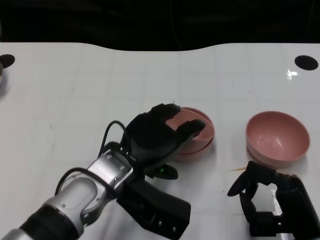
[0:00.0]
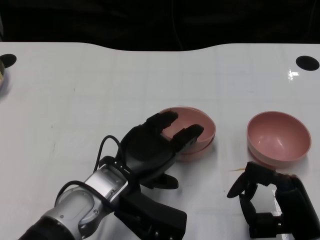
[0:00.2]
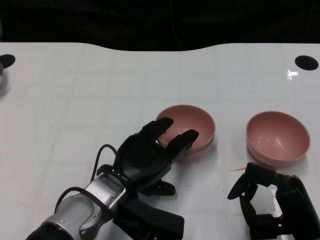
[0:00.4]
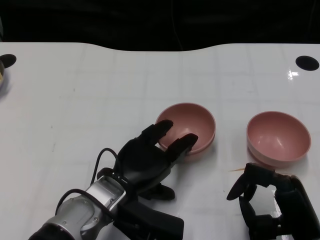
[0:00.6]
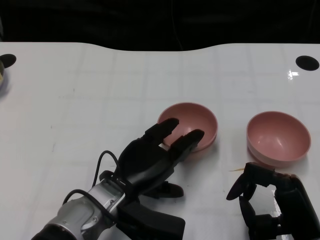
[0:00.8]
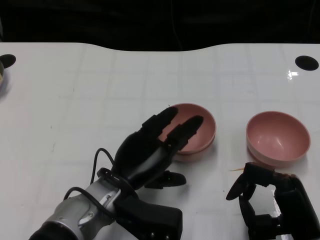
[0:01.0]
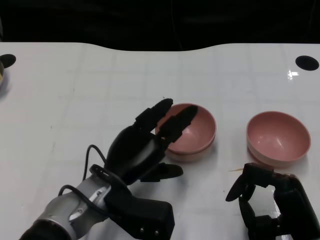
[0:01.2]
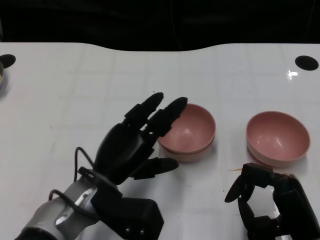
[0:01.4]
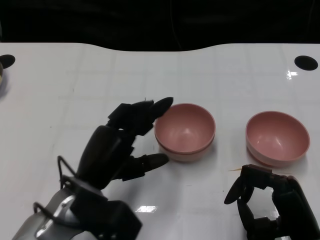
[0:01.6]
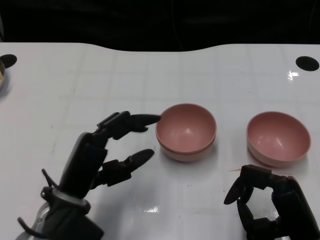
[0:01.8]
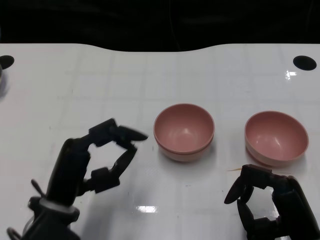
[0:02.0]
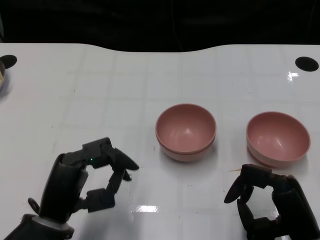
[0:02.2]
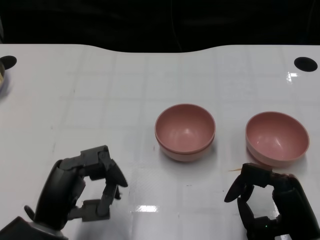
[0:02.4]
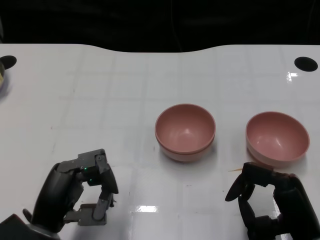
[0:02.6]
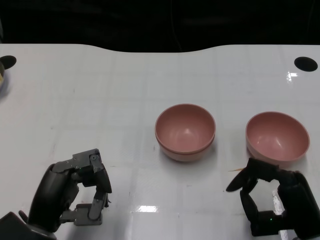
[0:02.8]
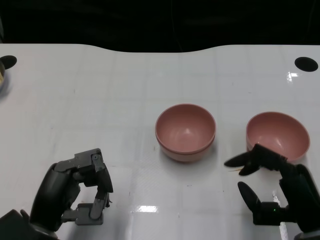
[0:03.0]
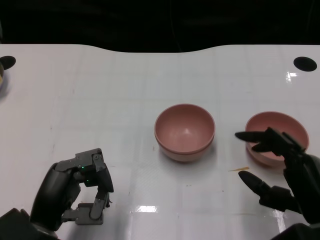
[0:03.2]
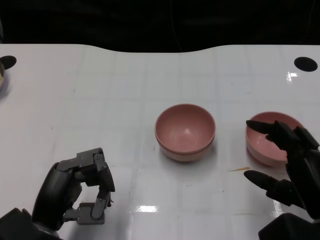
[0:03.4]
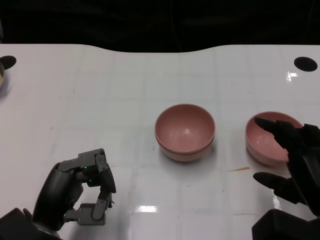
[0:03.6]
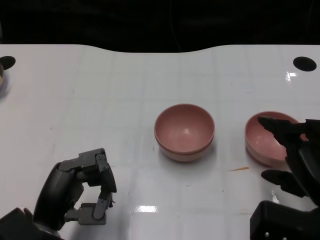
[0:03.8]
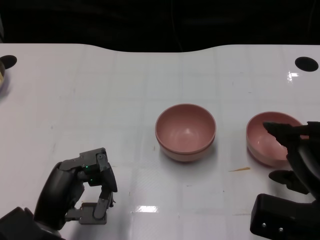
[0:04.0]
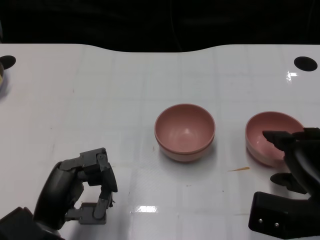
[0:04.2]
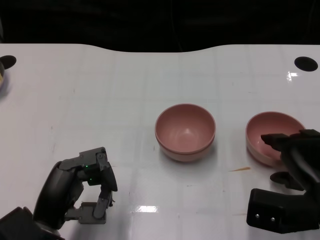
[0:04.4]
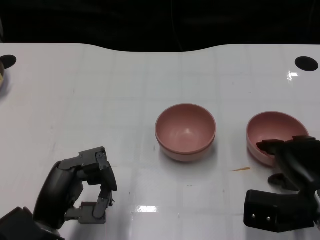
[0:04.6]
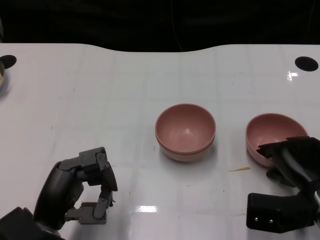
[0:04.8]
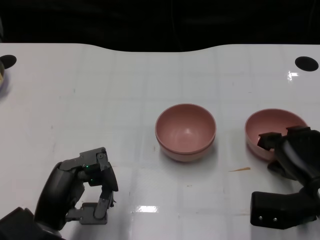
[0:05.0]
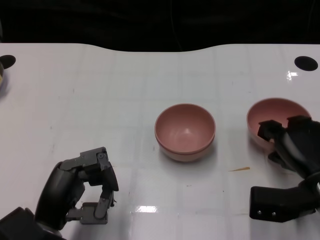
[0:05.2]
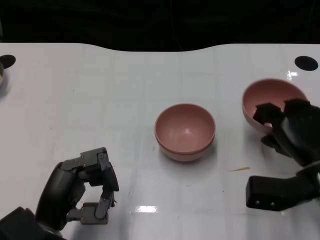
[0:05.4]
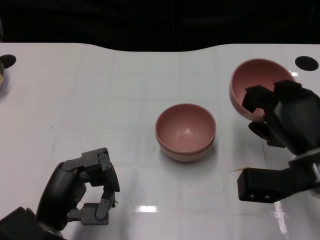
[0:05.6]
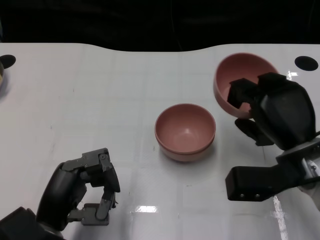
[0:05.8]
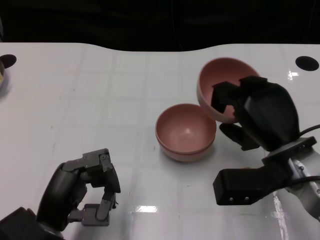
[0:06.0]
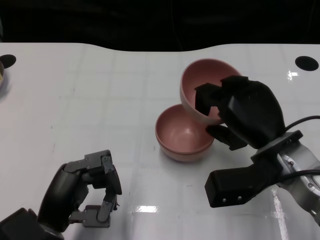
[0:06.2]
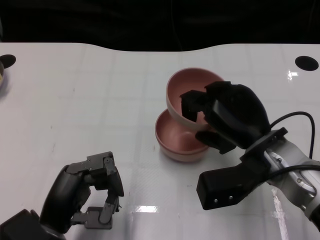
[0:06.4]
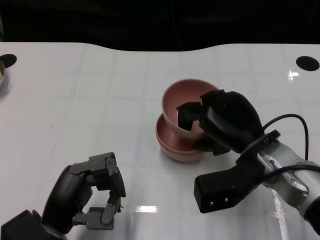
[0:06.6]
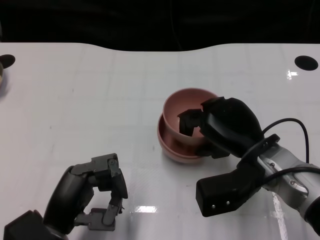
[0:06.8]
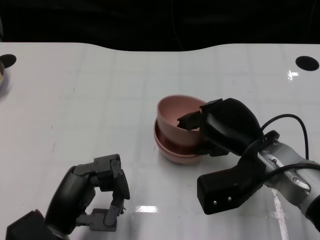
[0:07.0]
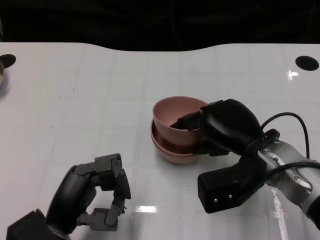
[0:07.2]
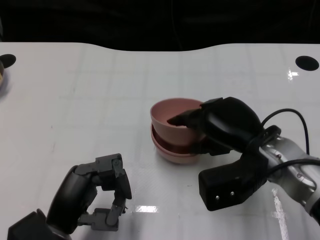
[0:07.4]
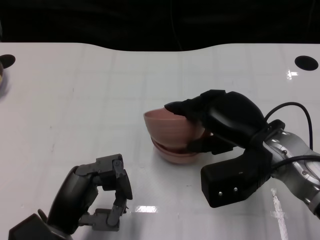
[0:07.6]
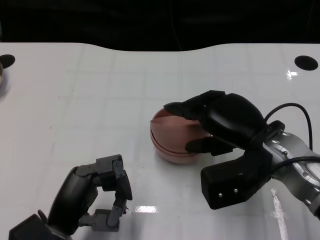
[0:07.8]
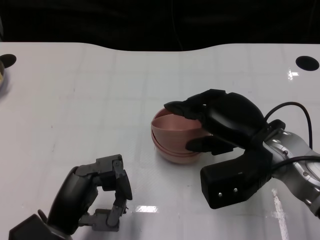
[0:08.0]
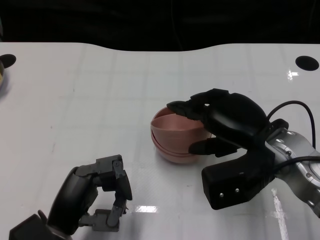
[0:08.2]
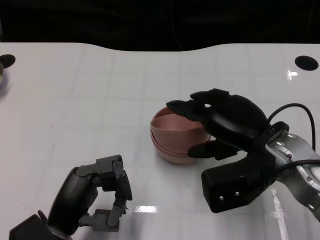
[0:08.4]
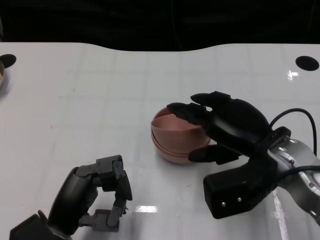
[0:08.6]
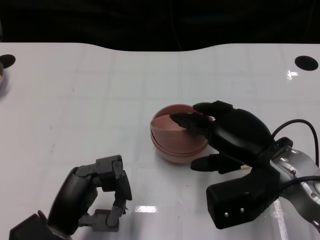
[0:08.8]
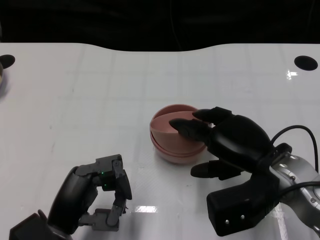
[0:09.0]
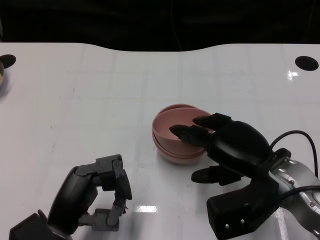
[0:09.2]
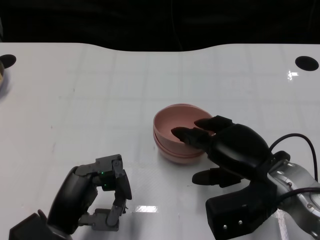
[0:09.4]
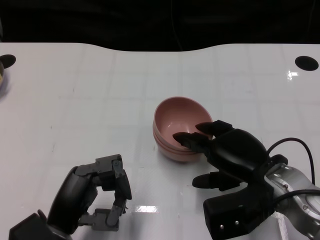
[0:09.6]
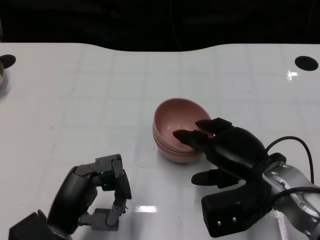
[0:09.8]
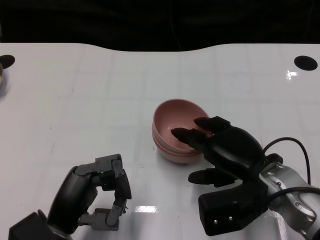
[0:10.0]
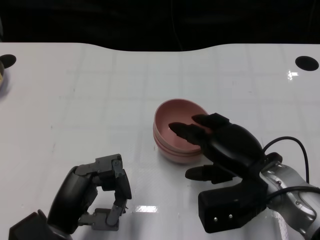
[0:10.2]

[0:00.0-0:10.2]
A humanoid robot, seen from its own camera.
Task of the whole recording: Pick up the bowl on one side of the table and place it on top of the middle bowl, then pick up the bowl on the other side of the table and place it on top of the middle bowls.
Step, 0:01.6 to 0:05.0: Grasp the bowl on the right with the right gripper.
0:01.4 to 0:03.0: The left hand travels to the left and backward by about 10 cm.
0:03.0 to 0:04.4: The right hand goes some 5 cm forward.
0:04.4 to 0:05.8: The right hand changes place by some 5 cm.
0:05.8 to 0:07.2: The right hand goes approximately 5 cm to the left.
0:07.2 to 0:10.2: The hands stay close to where they were, moving slightly.

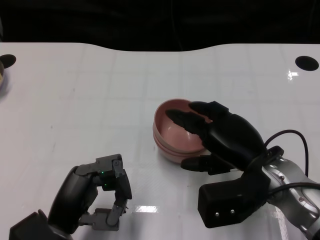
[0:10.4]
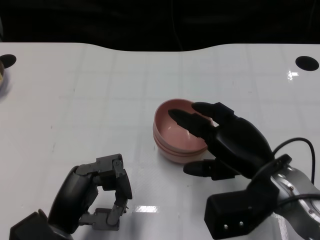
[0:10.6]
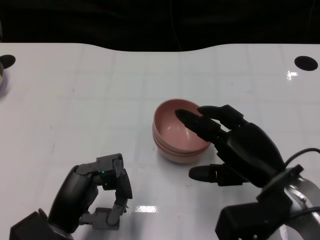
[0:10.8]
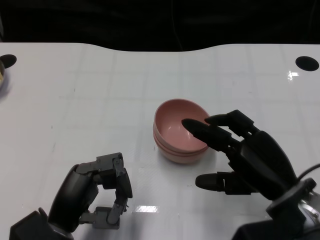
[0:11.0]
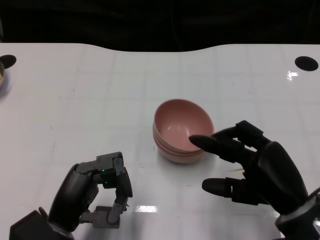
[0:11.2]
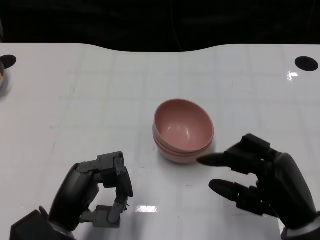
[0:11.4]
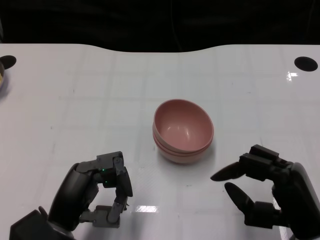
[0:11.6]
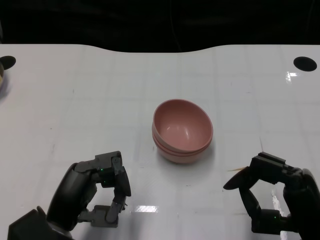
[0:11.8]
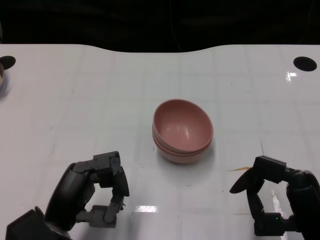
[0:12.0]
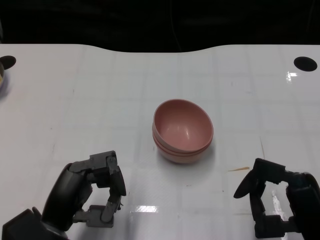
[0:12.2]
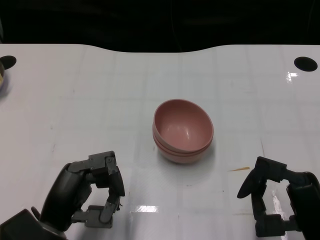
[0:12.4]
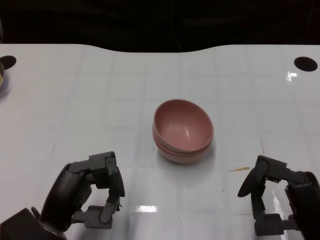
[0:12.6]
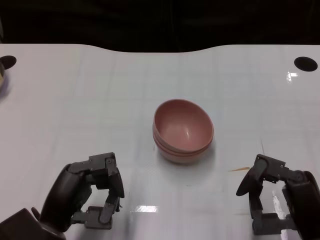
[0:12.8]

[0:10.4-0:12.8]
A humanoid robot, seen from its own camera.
Task of the whole recording: Pick up the bowl on one side of the table and place it on top of the middle bowl, then pick up the bowl on the other side of the table and place it on top of the middle bowls.
0:10.4 to 0:11.6: The right hand is displaced backward and to the right by approximately 10 cm.
0:11.6 to 0:12.8: There are only small adjustments of the hands.

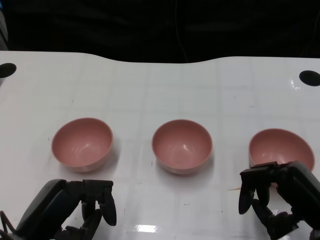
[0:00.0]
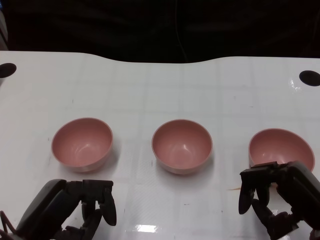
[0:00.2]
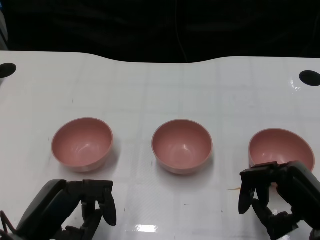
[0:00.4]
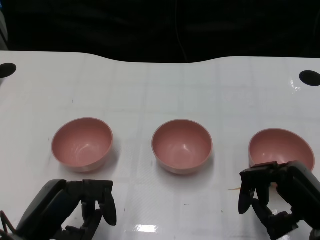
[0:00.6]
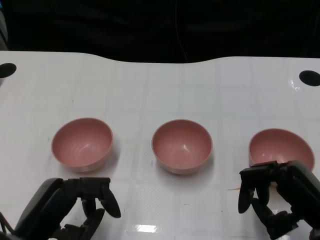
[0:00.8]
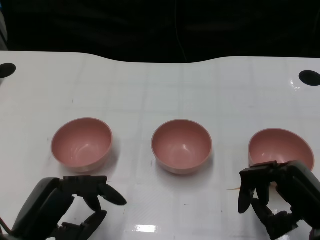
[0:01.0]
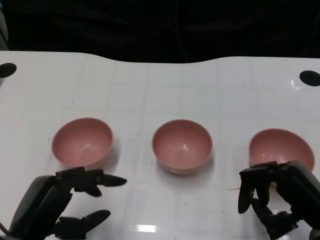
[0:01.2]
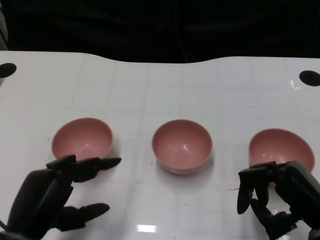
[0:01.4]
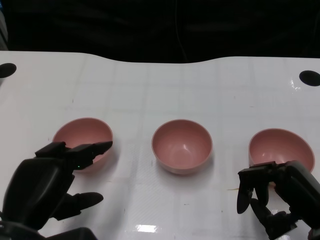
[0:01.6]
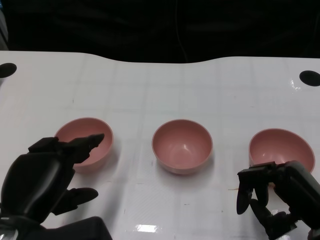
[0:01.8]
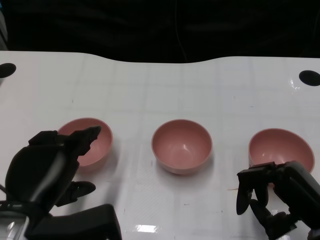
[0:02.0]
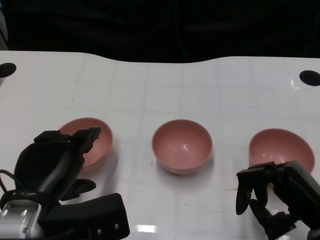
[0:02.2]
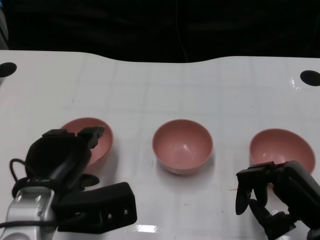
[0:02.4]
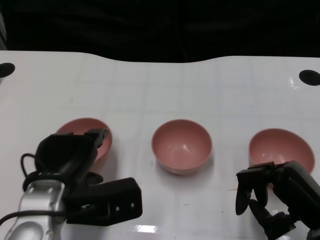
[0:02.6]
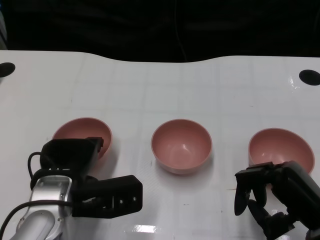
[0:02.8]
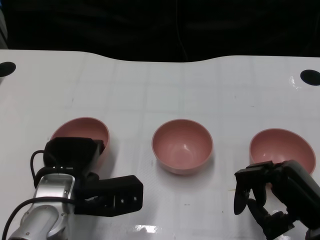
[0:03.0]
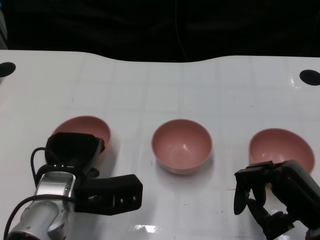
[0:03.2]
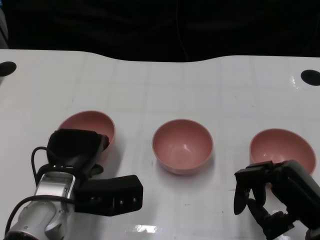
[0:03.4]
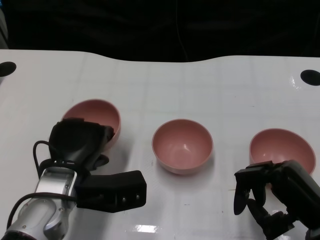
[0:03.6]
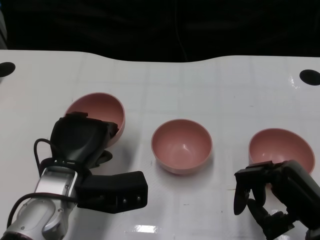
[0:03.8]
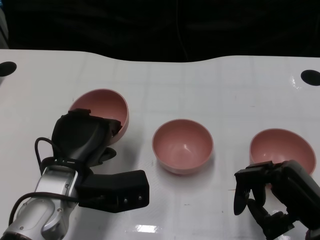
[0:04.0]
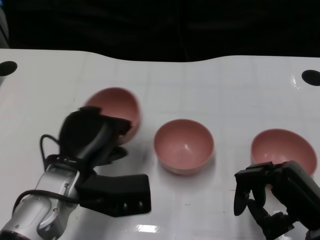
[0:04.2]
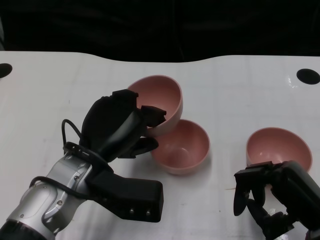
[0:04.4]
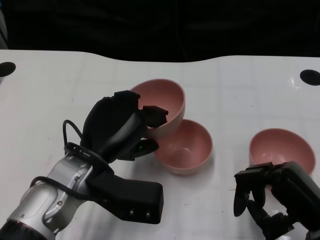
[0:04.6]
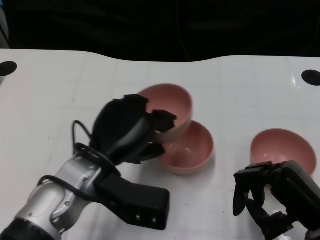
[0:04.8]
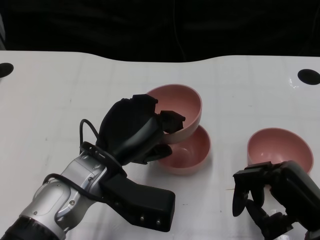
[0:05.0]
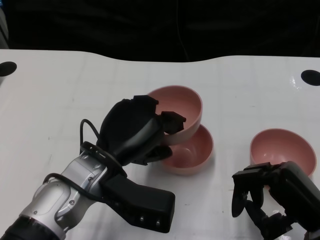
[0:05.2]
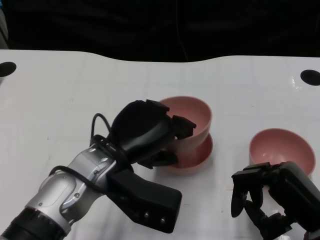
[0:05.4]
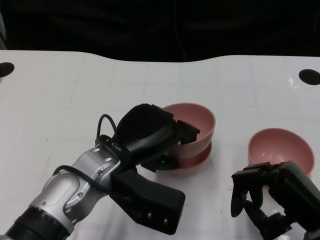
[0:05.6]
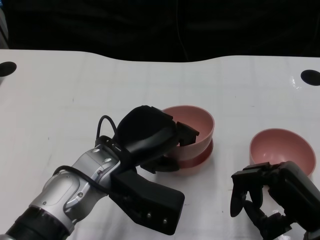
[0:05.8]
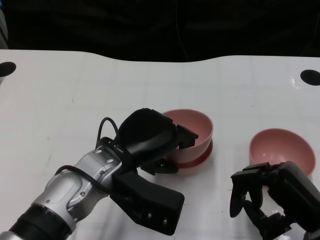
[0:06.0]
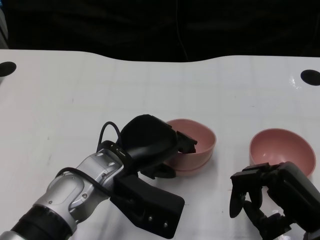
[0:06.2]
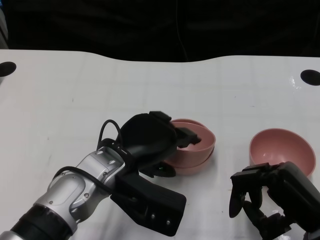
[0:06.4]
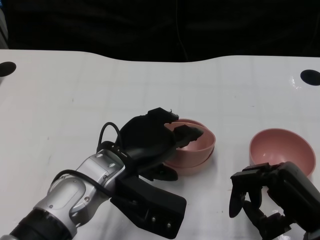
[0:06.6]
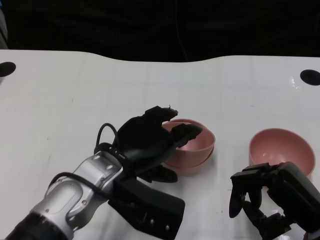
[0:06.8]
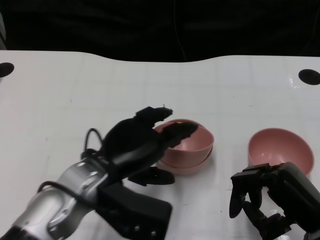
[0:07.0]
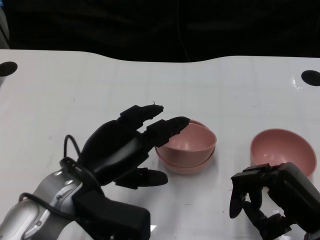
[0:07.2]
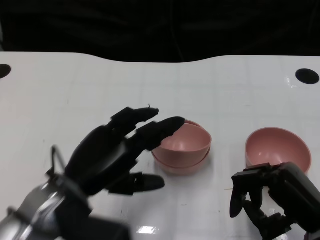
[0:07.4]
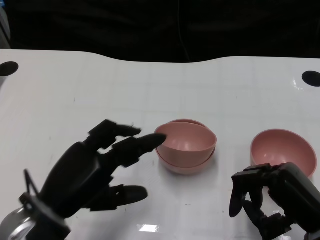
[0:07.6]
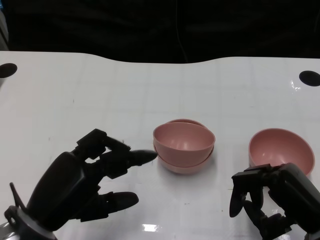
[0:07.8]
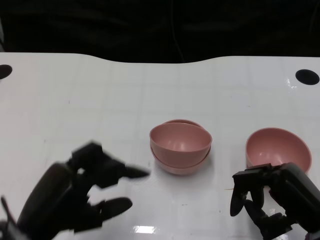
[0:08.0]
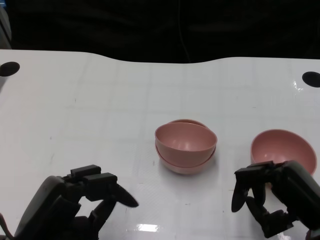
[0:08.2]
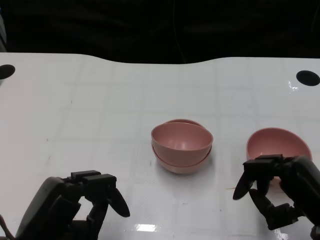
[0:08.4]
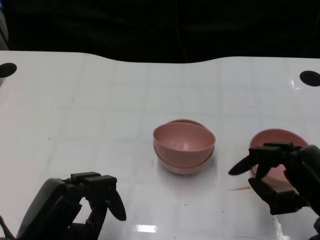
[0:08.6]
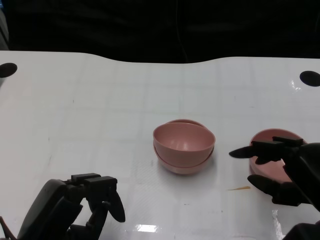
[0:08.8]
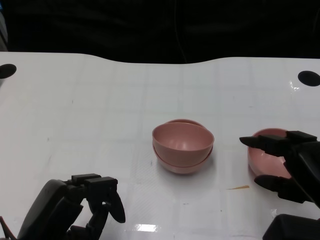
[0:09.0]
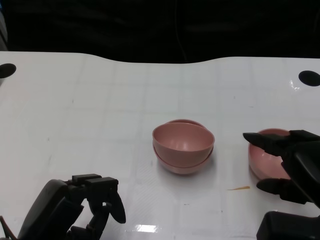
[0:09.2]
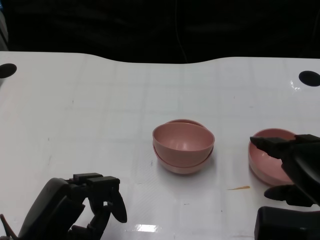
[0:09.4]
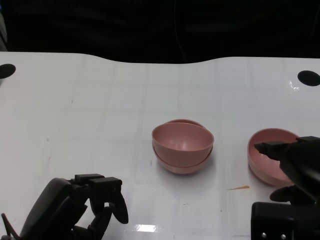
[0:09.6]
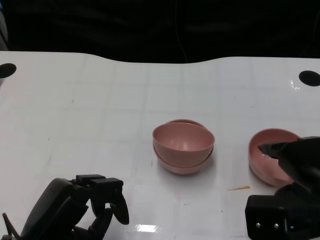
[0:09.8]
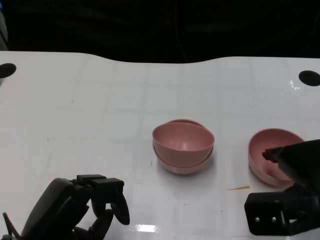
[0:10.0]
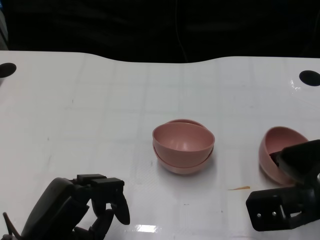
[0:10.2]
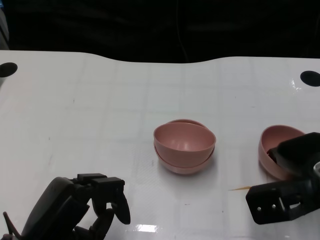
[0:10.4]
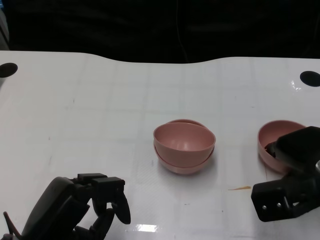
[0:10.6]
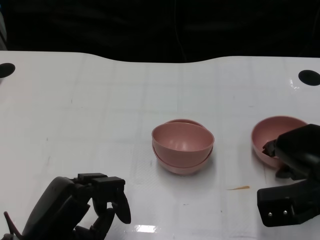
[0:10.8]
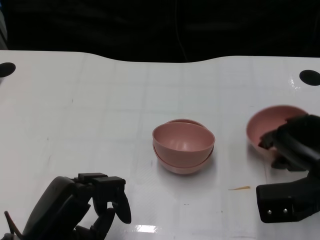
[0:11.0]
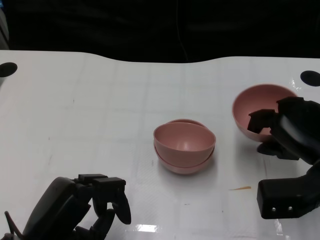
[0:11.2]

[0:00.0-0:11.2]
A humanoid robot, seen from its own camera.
Task of the whole recording: Pick up the bowl on one side of the table and place it on top of the middle bowl, then pick up the bowl on the other side of the table and place it on top of the middle bowls.
Step, 0:00.8 to 0:03.4: Grasp the bowl on the left with the left gripper.
Step, 0:03.8 to 0:06.8: Place the bowl on the left onto the bowl in the middle with left gripper.
Step, 0:07.0 to 0:11.0: Grasp the bowl on the right with the right gripper.
0:01.6 to 0:03.2: The left hand goes some 10 cm forward and to the right.
0:03.2 to 0:04.8: The left hand moves upward, roughly 5 cm.
0:06.4 to 0:08.0: The left hand moves to the left and backward, some 15 cm.
0:08.0 to 0:09.6: The right hand shifts some 5 cm upward.
0:09.6 to 0:11.2: The right hand goes roughly 5 cm forward.
